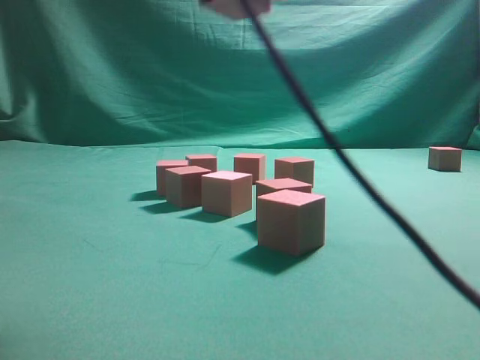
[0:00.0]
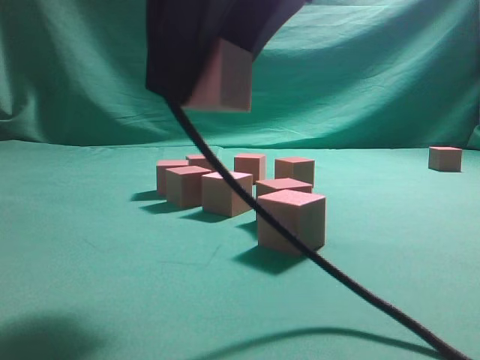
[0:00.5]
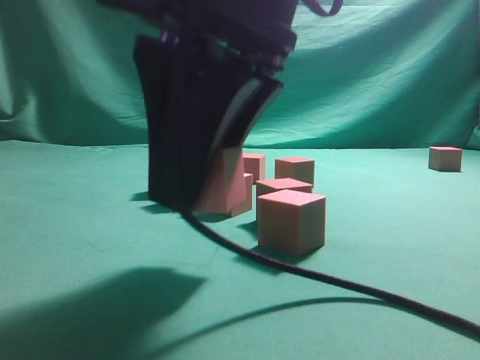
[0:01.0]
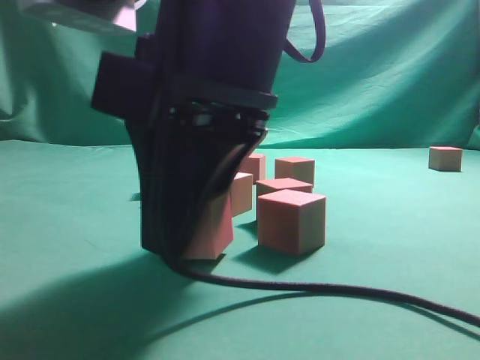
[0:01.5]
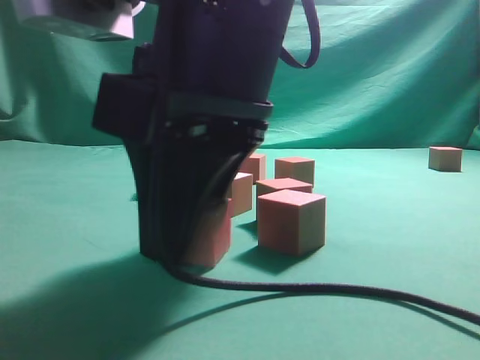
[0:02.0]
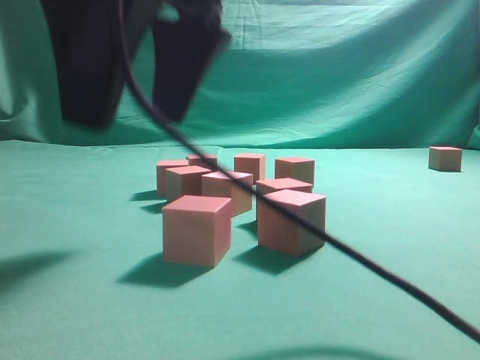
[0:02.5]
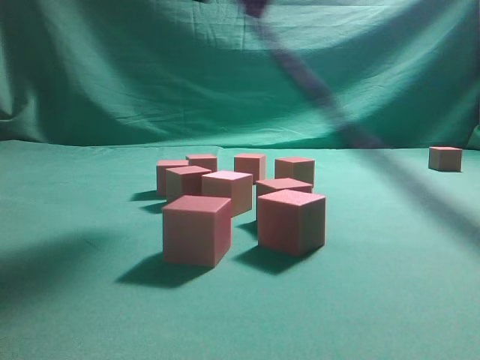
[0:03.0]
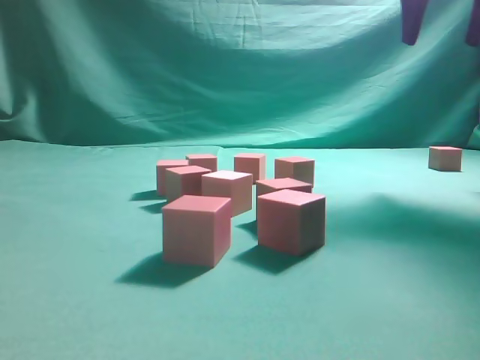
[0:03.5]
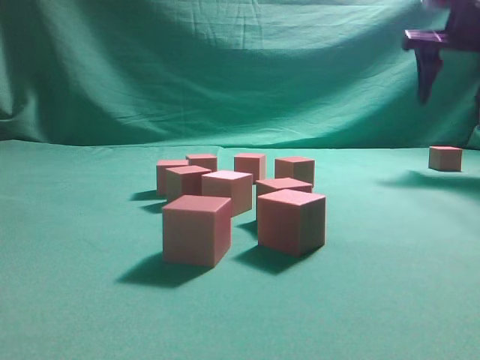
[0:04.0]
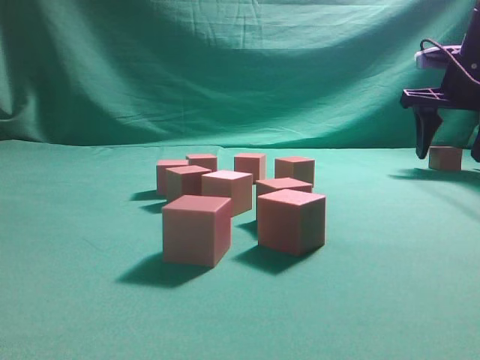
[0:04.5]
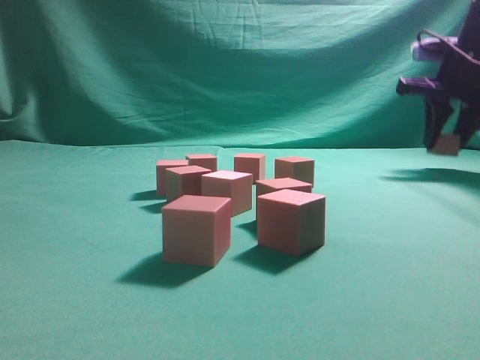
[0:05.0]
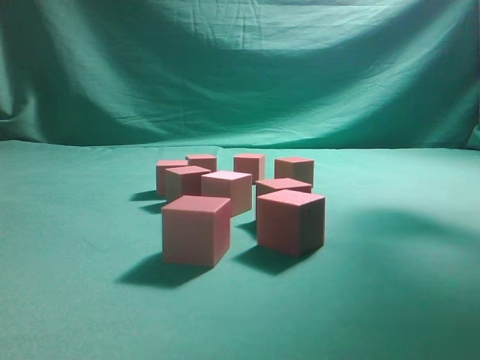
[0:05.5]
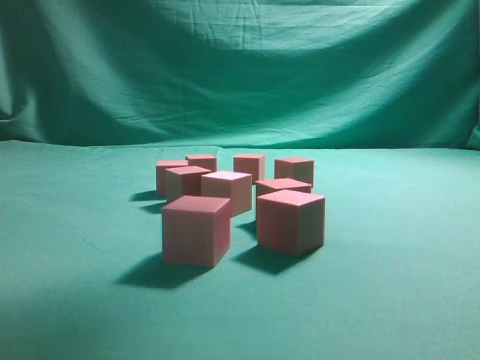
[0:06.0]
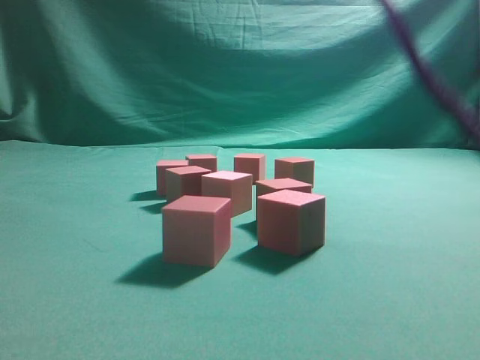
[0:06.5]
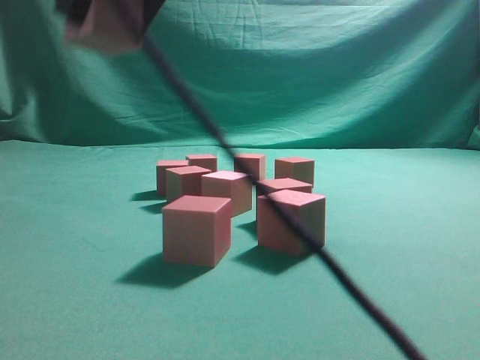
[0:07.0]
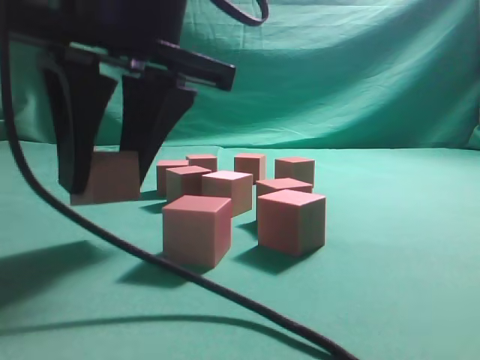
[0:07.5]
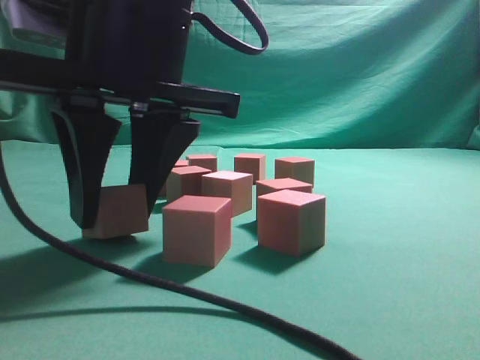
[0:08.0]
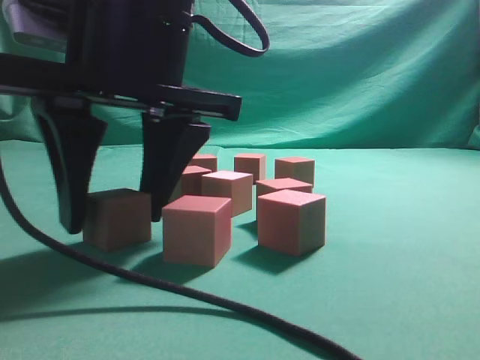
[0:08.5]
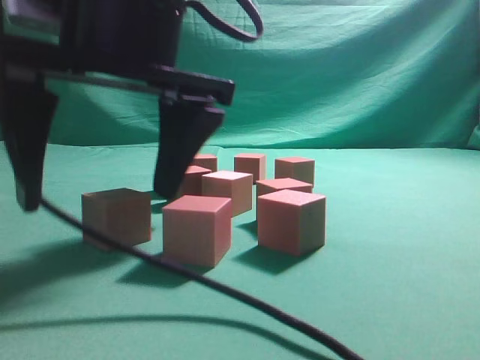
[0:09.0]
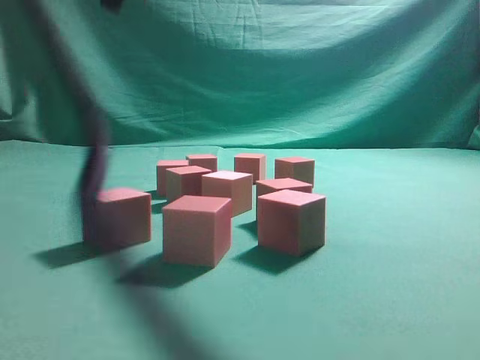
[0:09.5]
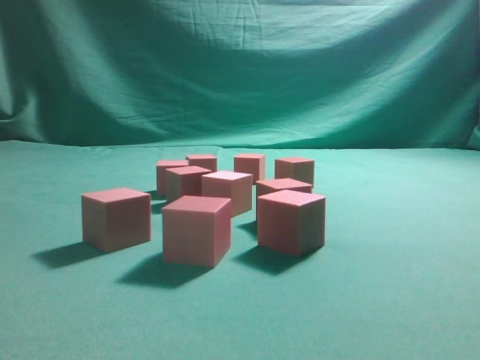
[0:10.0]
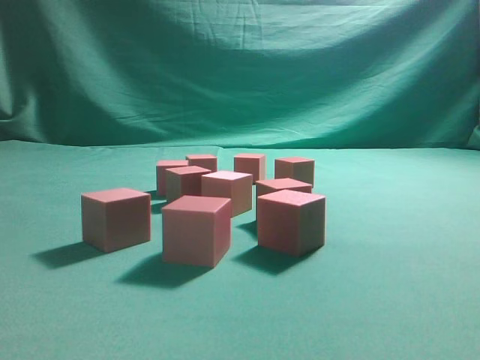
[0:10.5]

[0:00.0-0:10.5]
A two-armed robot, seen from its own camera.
Task of the whole recording: pick up the multiple cubes in two columns one by one and place them in another position on the table.
Step, 0:00.0 to 0:02.5: Place the block at the correct position to assemble the letter S.
Step, 0:03.0 to 0:04.5: Pick up the block on the table.
Step, 0:05.5 to 0:09.0: Place the block at the correct position to assemble the letter S.
0:00.0 to 0:02.0: The right gripper is displaced downward by approximately 15 cm.
0:02.0 to 0:04.0: The right gripper heads to the right and forward, covering about 40 cm, and opens up.
0:04.0 to 0:06.5: The right gripper moves up and down over roughly 25 cm, changing direction 2 times, and closes.
0:06.5 to 0:08.5: The right gripper heads downward and to the left, covering some 20 cm.
0:08.5 to 0:10.5: The right gripper heads upward and to the right, covering roughly 30 cm, and closes.
